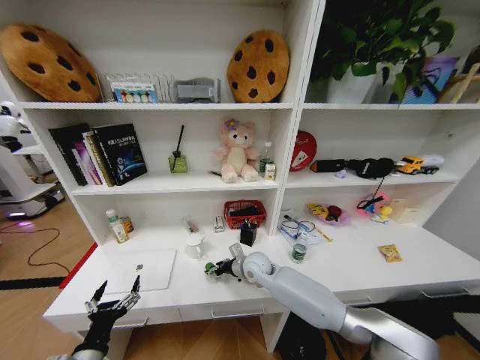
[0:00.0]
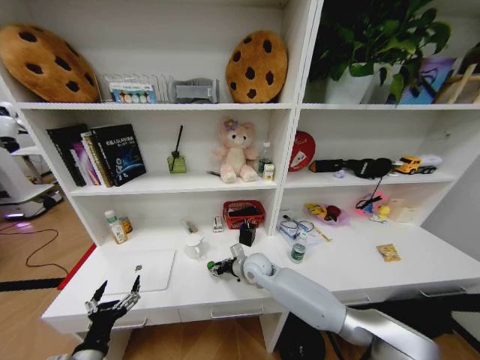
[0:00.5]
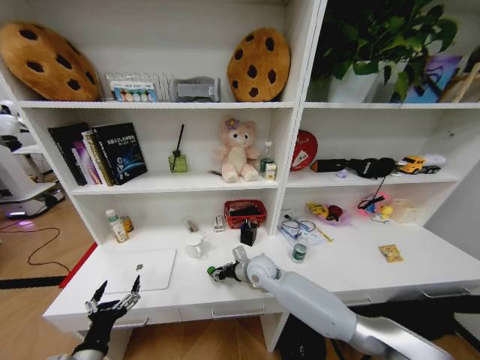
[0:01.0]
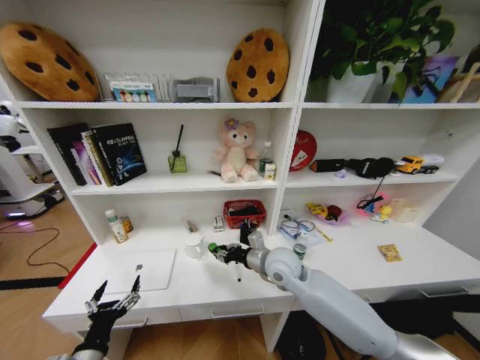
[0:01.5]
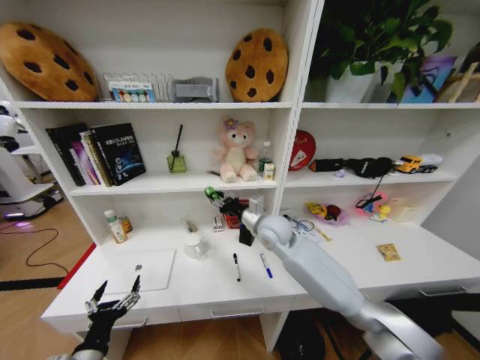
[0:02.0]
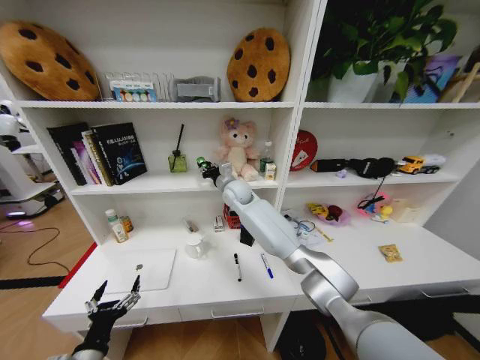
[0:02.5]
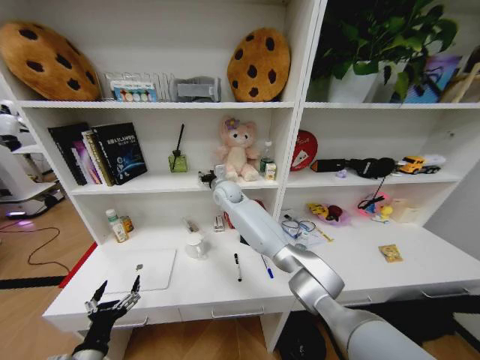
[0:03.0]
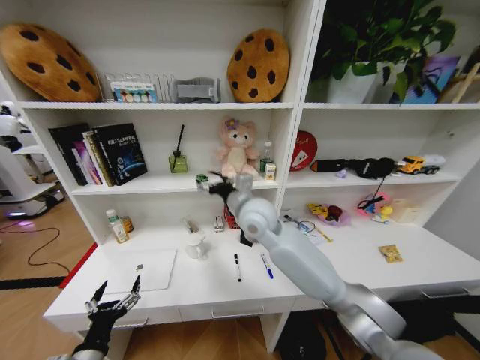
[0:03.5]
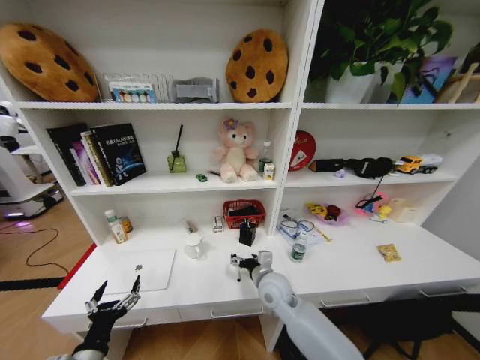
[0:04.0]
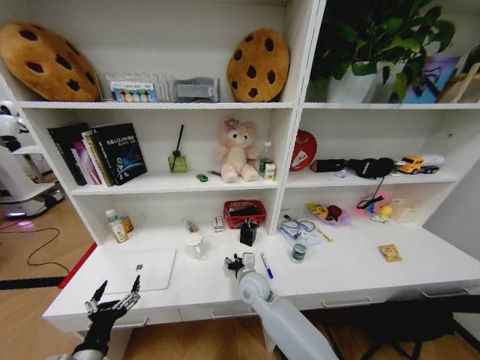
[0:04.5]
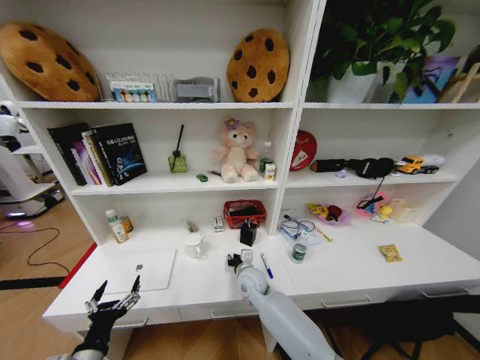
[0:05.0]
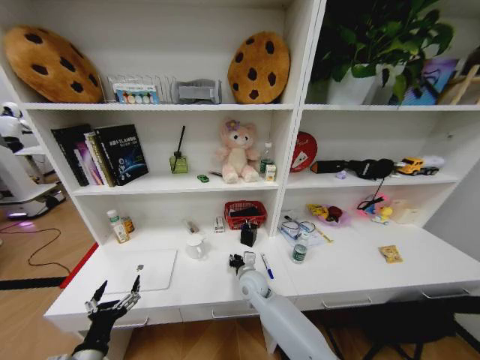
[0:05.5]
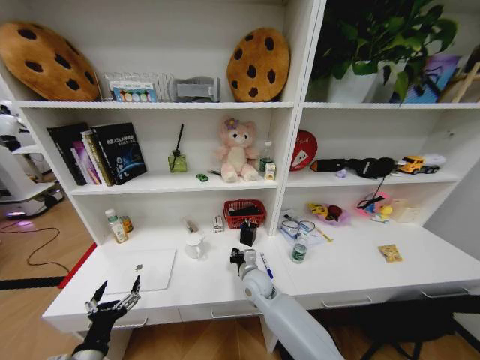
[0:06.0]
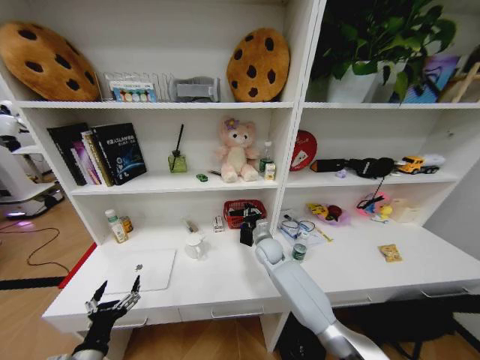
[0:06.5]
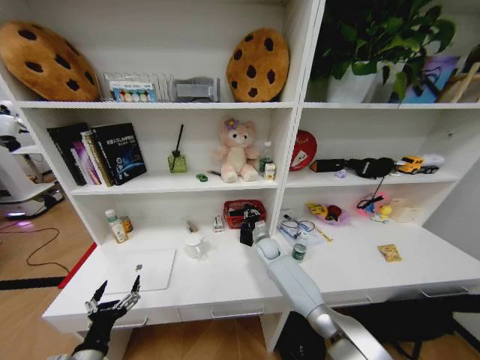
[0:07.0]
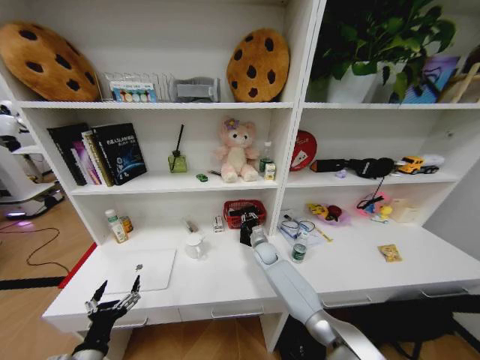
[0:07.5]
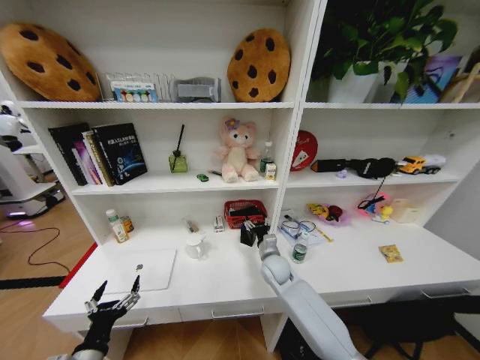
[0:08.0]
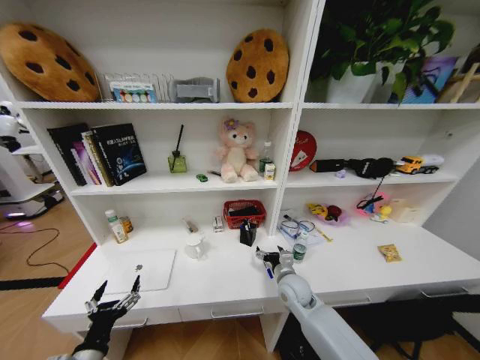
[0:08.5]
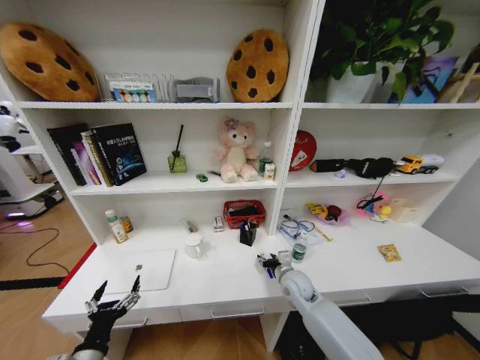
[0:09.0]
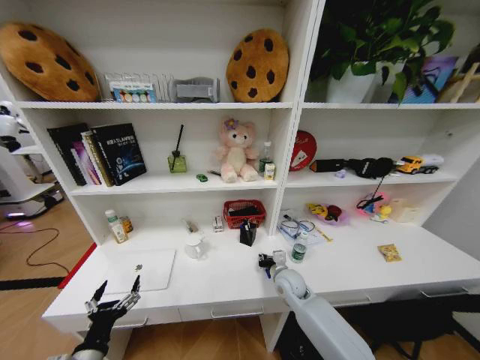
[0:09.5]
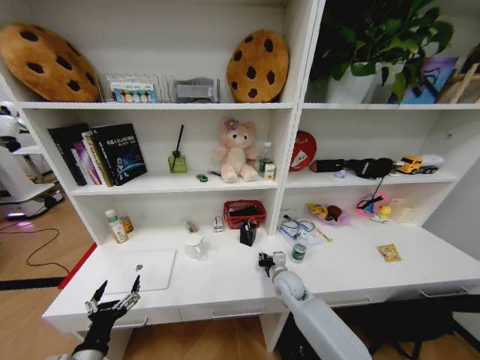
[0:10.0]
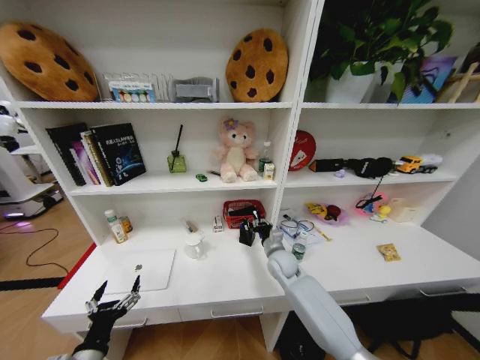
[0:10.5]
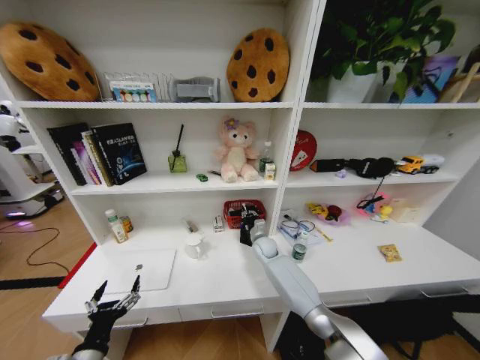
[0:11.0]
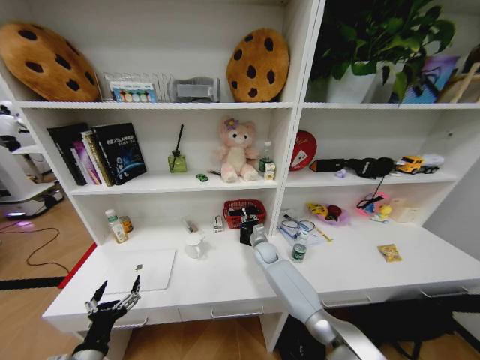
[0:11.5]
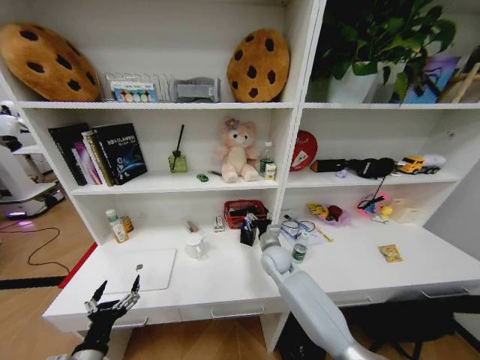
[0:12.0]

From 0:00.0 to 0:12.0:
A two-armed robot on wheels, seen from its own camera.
Task of the whole recording: Organize the objects on the table.
From 0:00.0 to 0:02.0: The right gripper goes about 15 cm upward, and closes its fingers.
From 0:02.0 to 0:04.0: The right gripper heads downward and backward, covering about 20 cm, and opens its fingers.
From 0:04.0 to 0:06.0: The right gripper changes place by approximately 5 cm, and closes its fingers.
From 0:06.0 to 0:08.0: The right gripper shifts some 5 cm to the right, moves about 15 cm forward and comes back, and opens its fingers.
From 0:08.0 to 0:10.0: The right gripper shifts by roughly 5 cm, and closes.
From 0:10.0 to 0:12.0: The right gripper goes roughly 5 cm upward, moves about 15 cm forward and comes back, and opens up.

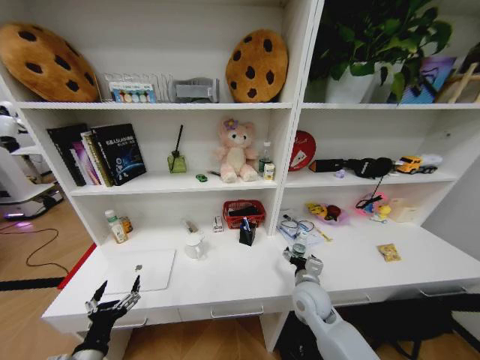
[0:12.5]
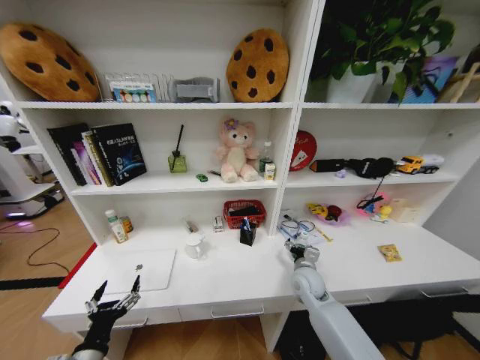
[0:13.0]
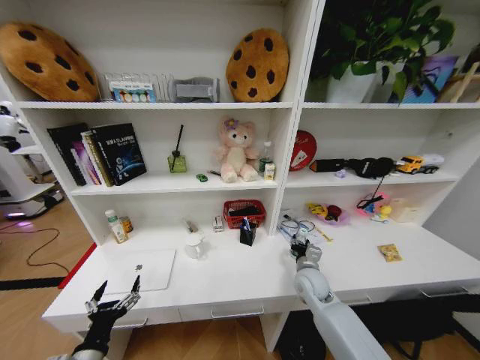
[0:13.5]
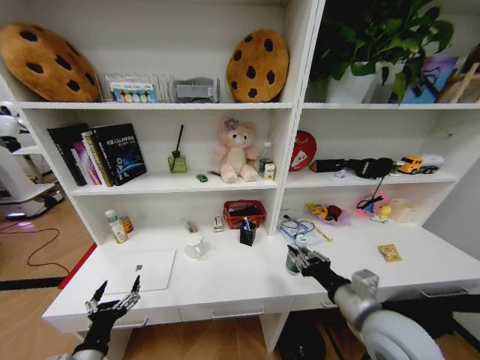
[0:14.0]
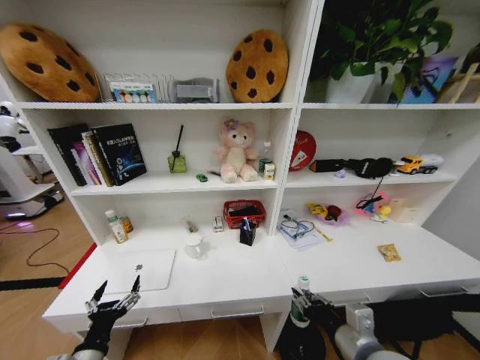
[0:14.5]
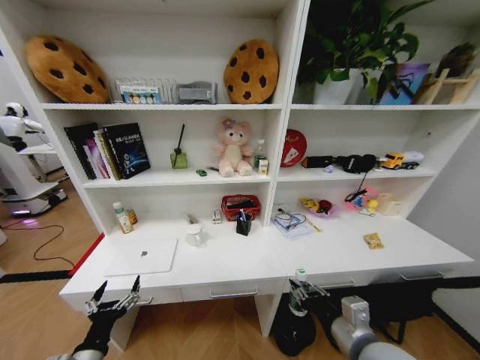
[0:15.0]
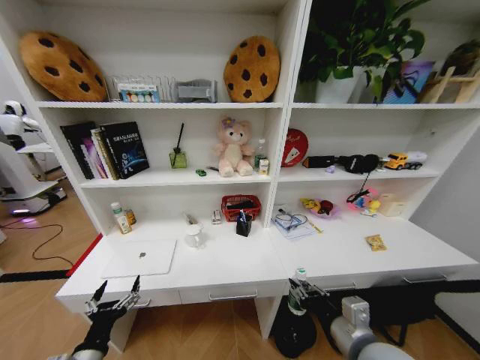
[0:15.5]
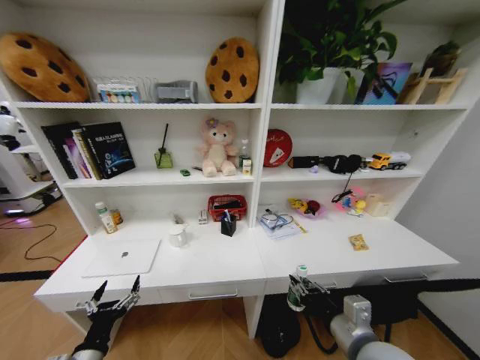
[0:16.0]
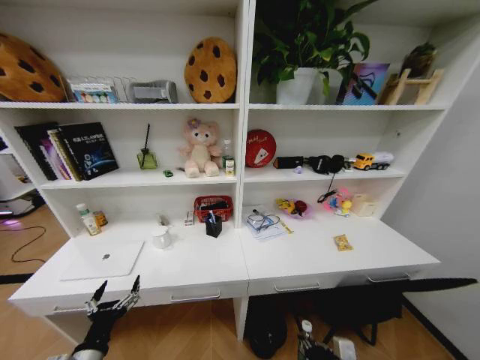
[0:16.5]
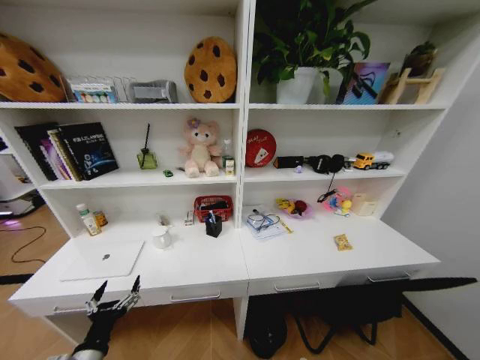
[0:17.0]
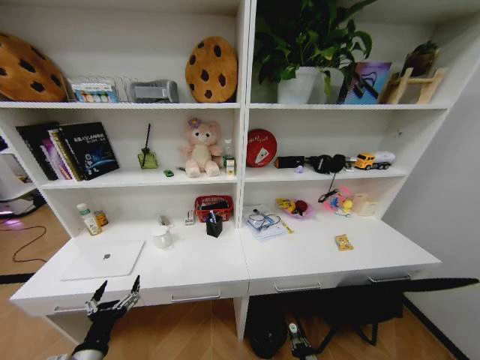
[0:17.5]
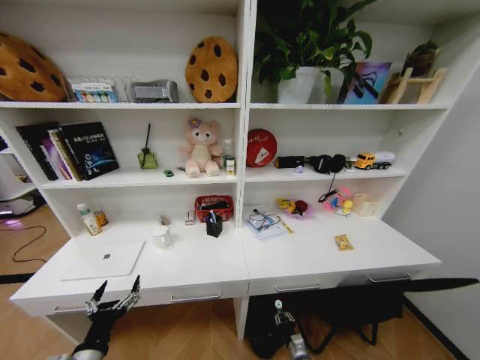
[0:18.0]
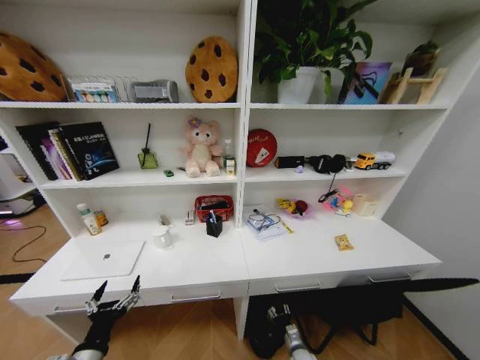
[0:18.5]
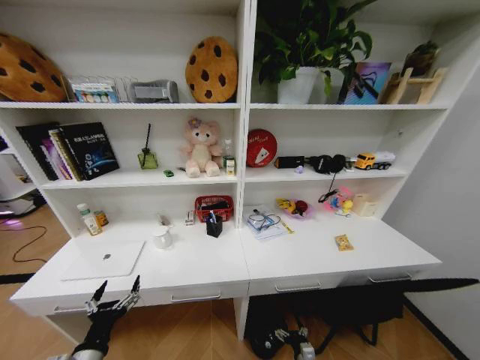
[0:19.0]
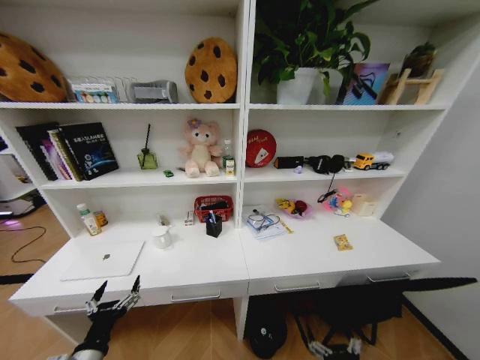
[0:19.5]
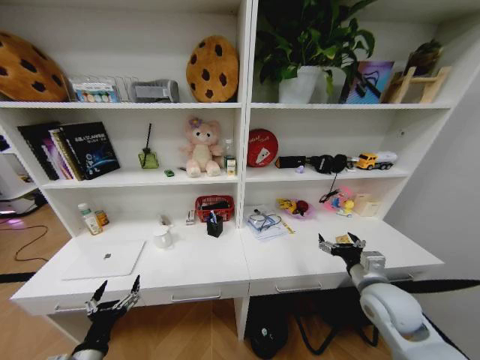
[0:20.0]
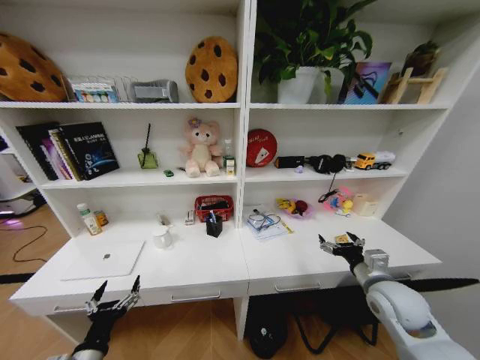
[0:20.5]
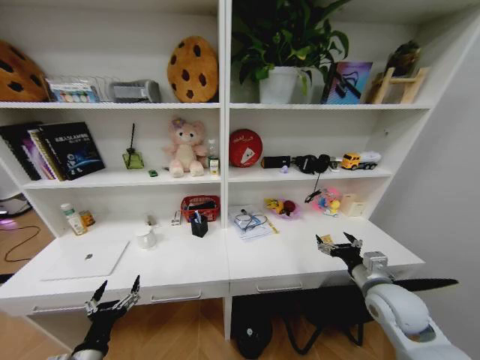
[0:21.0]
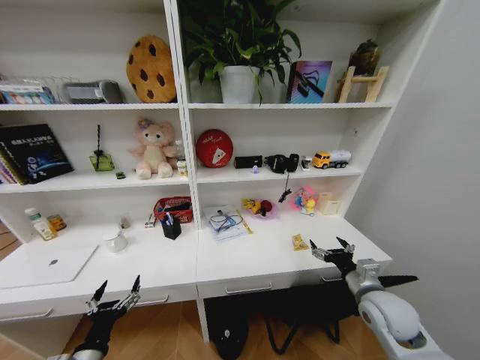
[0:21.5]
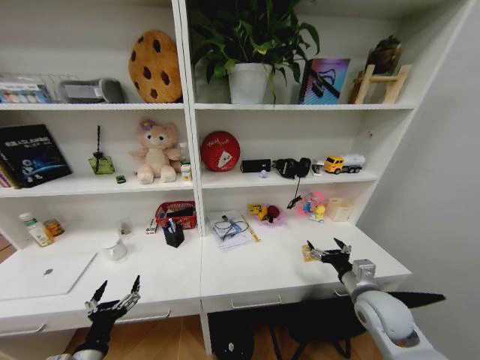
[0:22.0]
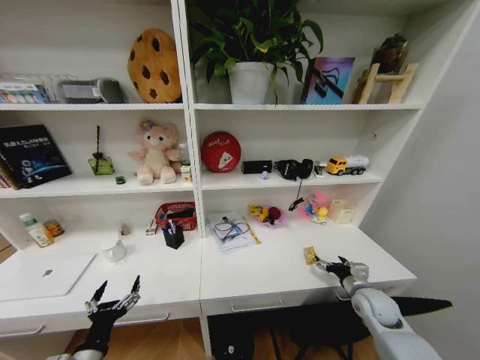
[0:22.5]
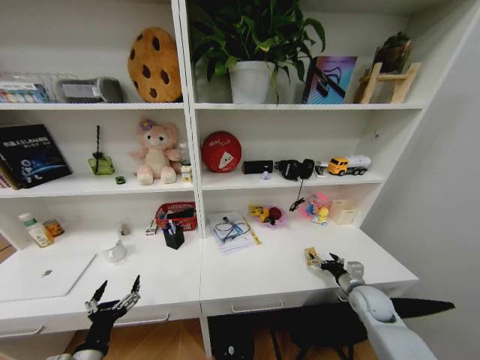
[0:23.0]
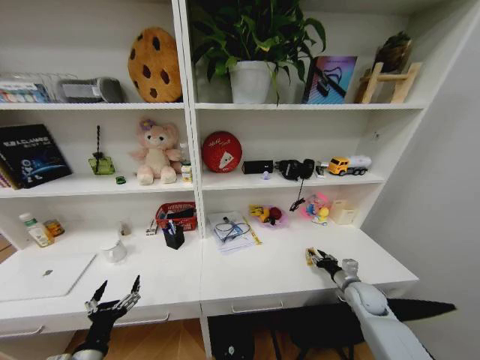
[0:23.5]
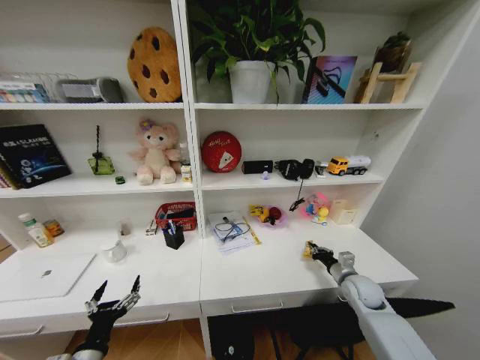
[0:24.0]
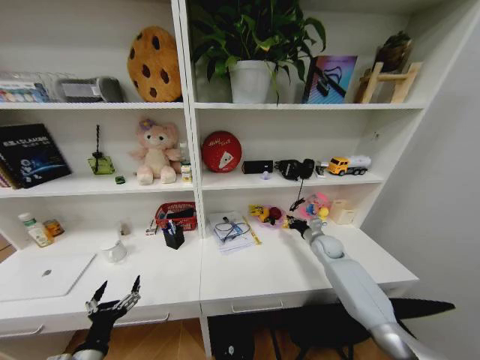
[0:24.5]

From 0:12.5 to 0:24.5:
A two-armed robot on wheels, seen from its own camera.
Task of the whole recording: Organize the objects on the table.
From 0:12.5 to 0:14.5: The right gripper is displaced backward and upward by about 20 cm, and closes its fingers.
From 0:14.5 to 0:16.5: The right gripper shifts some 10 cm downward.
From 0:16.5 to 0:18.5: The right gripper heads downward, covering approximately 30 cm.
From 0:18.5 to 0:20.5: The right gripper moves upward, roughly 40 cm, and opens its fingers.
From 0:20.5 to 0:22.5: The right gripper goes some 10 cm downward.
From 0:22.5 to 0:24.5: The right gripper is displaced forward by about 20 cm, and closes up.

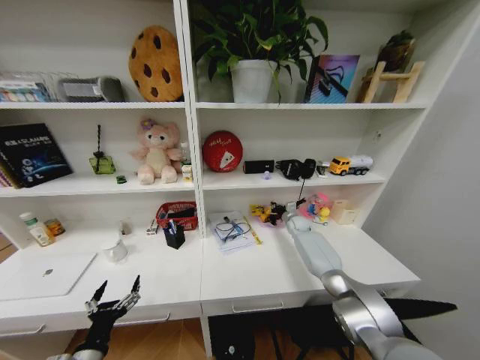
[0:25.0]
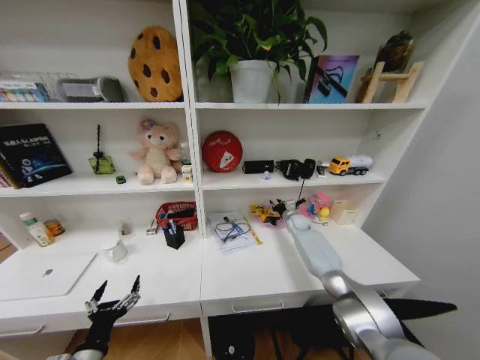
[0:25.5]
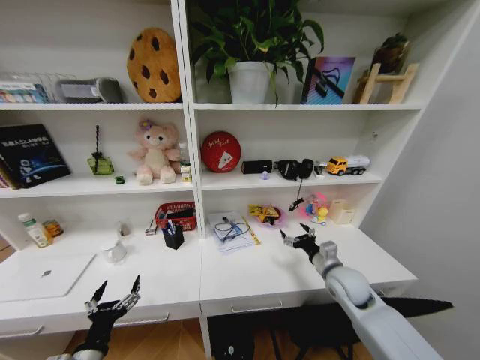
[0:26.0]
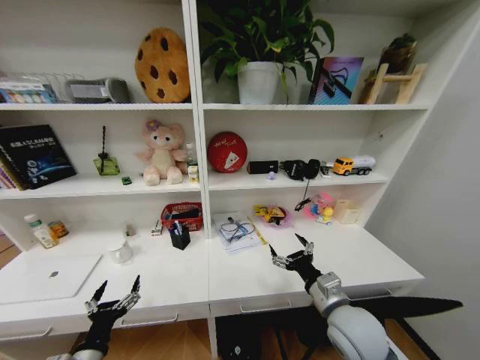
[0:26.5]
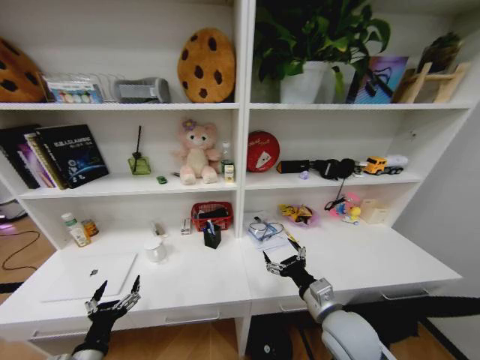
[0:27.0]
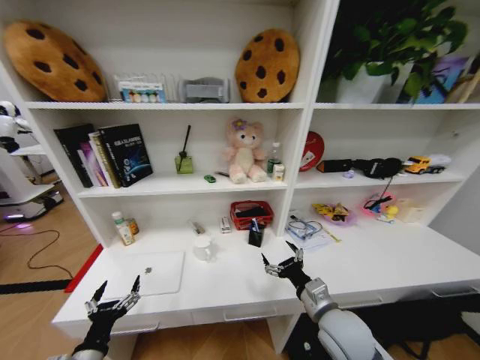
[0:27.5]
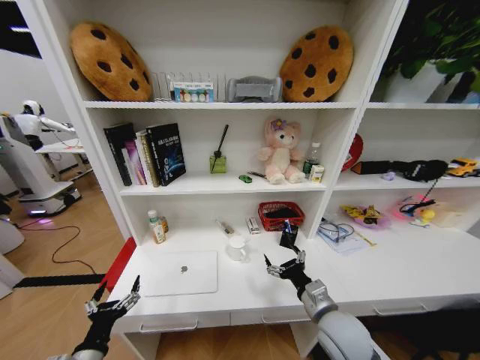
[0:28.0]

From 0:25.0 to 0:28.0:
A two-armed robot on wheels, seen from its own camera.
Task of the whole recording: Organize the objects on the table.
From 0:25.0 to 0:26.5: The right gripper moves backward, about 40 cm, and opens.
